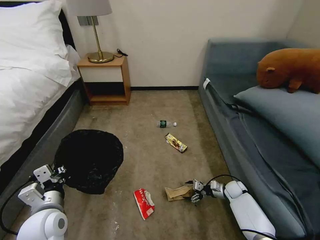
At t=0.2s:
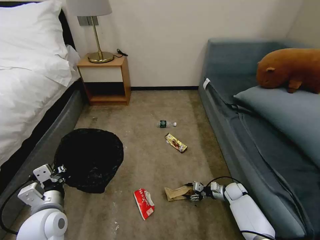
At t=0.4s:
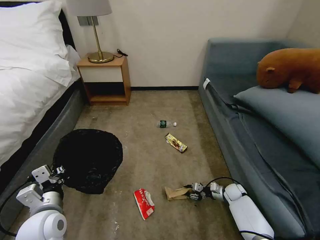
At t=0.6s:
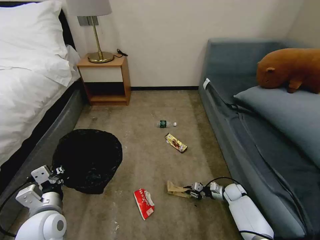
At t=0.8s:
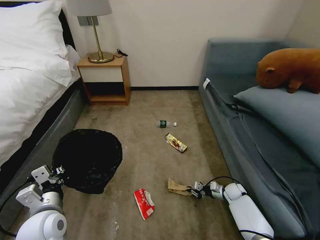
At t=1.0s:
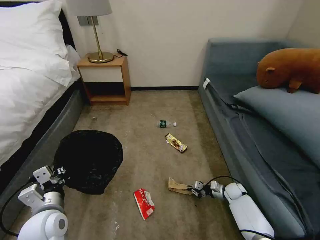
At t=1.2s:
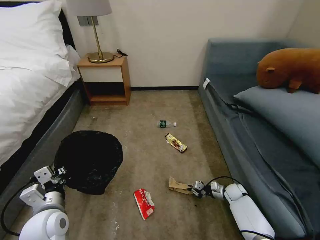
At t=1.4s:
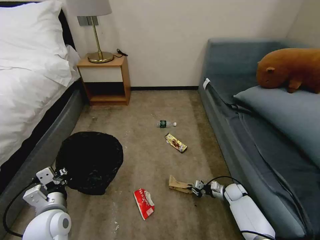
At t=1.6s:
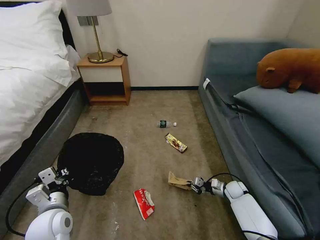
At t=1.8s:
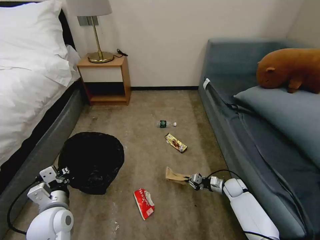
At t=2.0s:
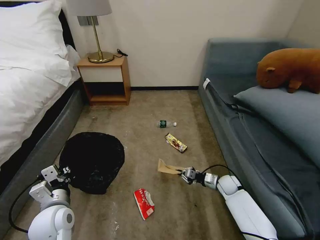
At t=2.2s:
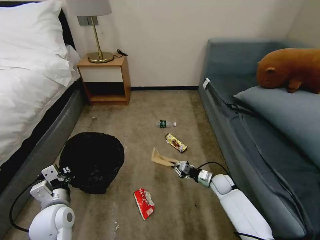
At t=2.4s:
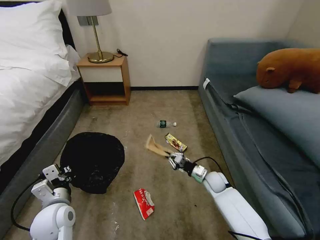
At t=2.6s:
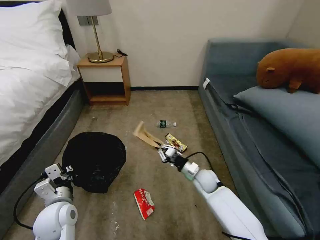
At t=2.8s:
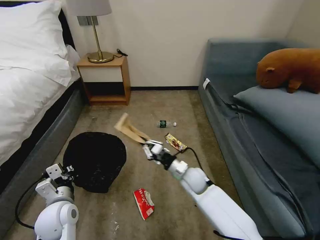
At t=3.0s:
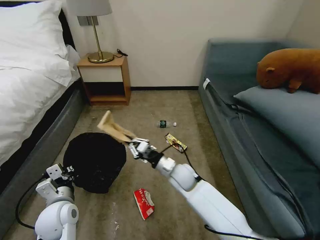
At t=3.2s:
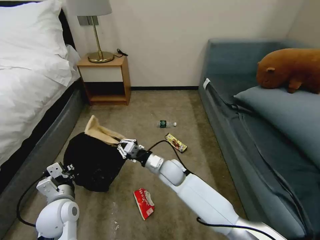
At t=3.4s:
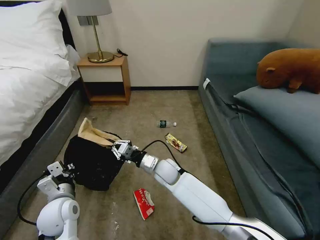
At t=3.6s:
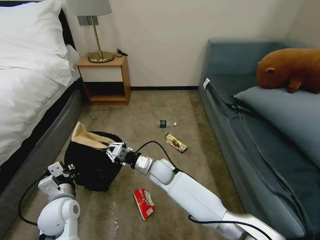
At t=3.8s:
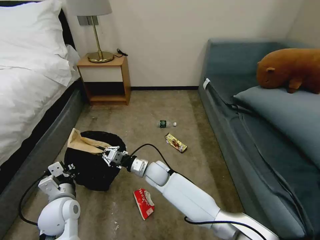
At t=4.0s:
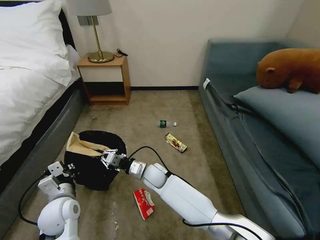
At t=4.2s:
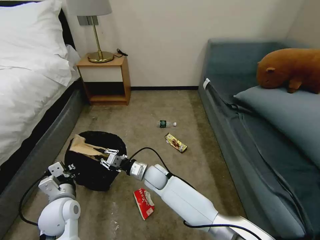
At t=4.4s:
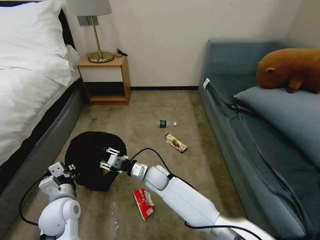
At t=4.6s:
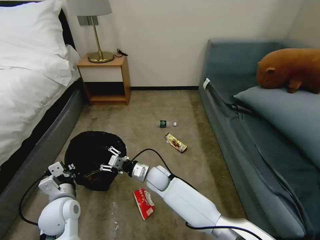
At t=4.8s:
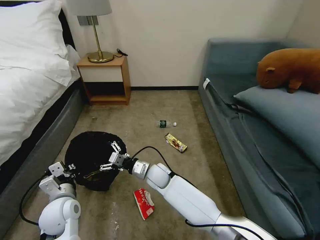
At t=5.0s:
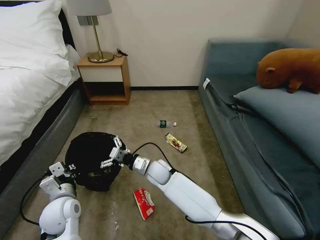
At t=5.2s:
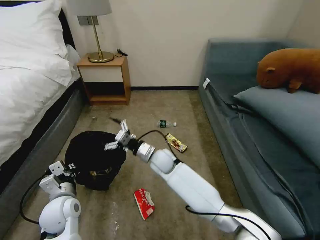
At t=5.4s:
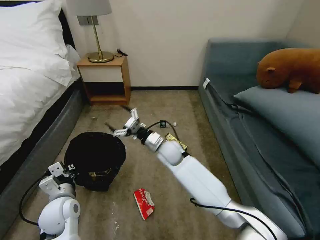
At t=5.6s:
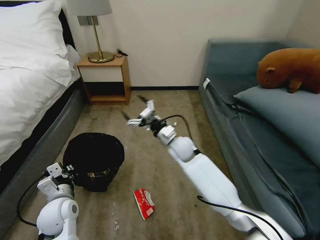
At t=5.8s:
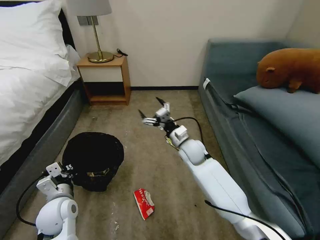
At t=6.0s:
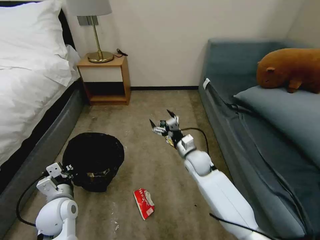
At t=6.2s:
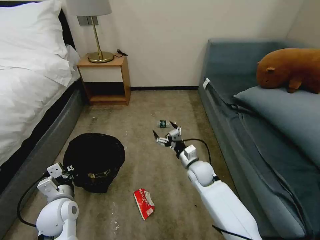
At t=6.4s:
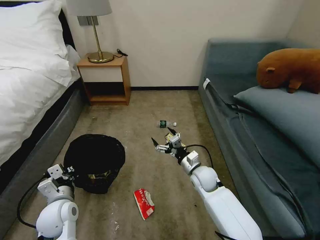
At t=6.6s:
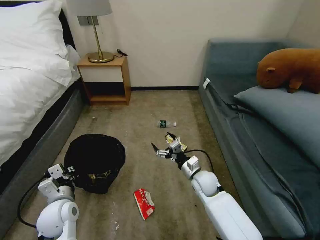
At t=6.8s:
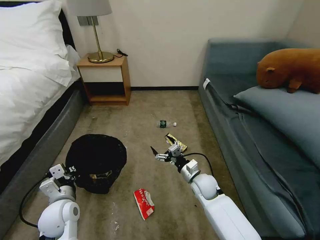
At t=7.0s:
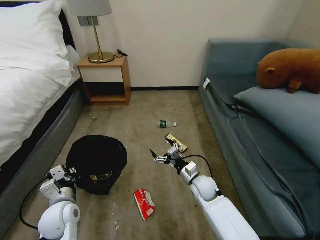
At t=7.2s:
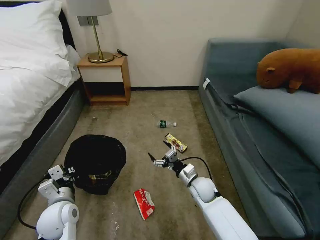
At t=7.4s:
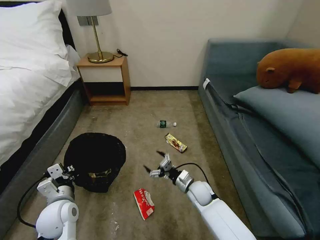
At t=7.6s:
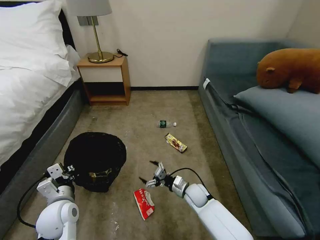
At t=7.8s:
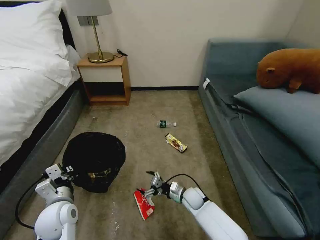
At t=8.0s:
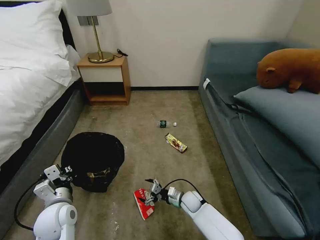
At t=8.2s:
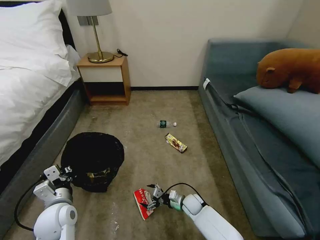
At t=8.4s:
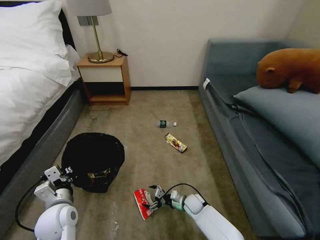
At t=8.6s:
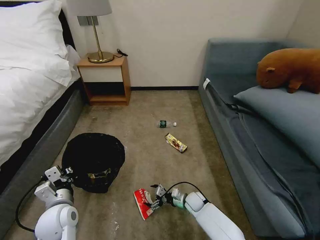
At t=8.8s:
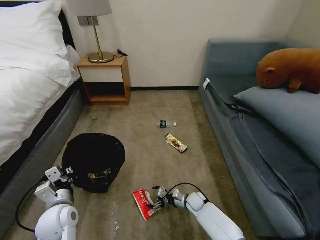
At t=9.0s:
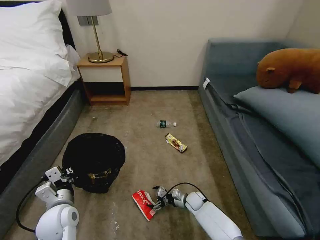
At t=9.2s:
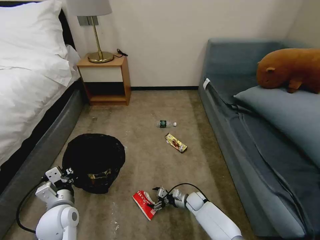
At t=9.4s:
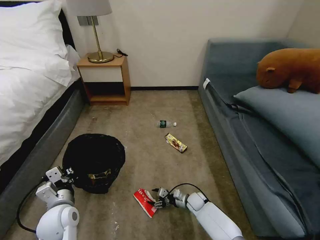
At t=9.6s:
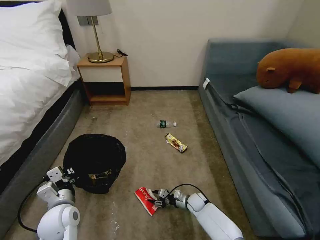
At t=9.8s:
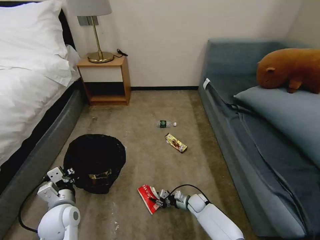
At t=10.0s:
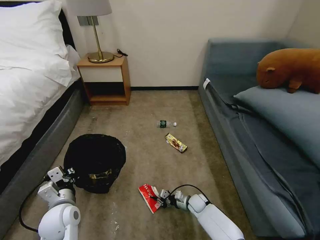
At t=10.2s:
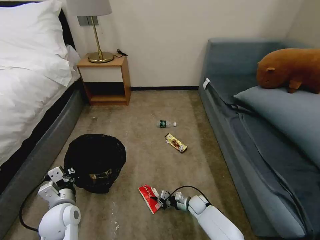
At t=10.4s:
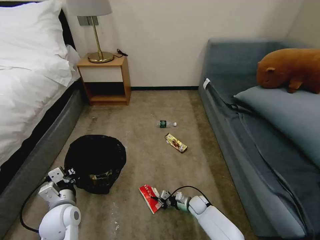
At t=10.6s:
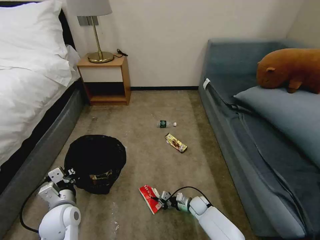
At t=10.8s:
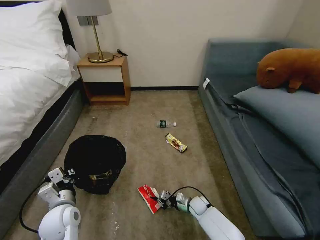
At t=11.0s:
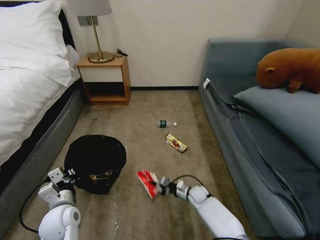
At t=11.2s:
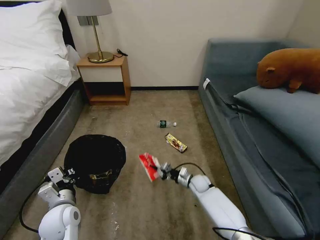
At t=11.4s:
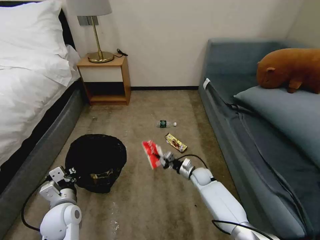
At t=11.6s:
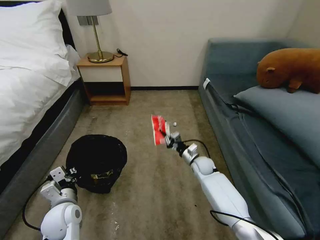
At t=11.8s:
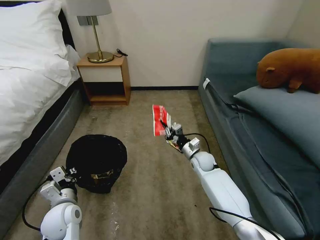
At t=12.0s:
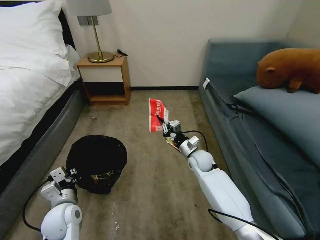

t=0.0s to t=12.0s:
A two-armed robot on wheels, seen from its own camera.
Task of the whole recording: Pick up the trash bin, then pick up the garbage on the floor and place it into the trash bin.
t=0.0s to t=1.6s: The right gripper closes.
t=1.6s to t=3.0s: The right gripper moves to the left and upward, about 35 cm.
t=3.0s to t=4.4s: The right gripper is displaced to the left by about 10 cm, and opens its fingers.
t=4.4s to t=6.0s: The right gripper heads to the right, covering roughly 15 cm, and opens up.
t=6.0s to t=7.6s: The right gripper moves downward and backward, about 15 cm.
t=7.6s to t=9.0s: The right gripper travels downward by about 10 cm.
t=9.0s to t=10.4s: The right gripper closes.
t=10.4s to t=12.0s: The right gripper heads upward and forward, covering some 25 cm.

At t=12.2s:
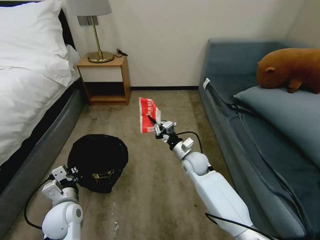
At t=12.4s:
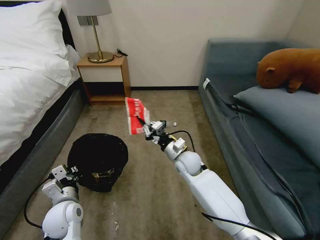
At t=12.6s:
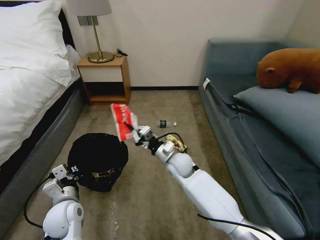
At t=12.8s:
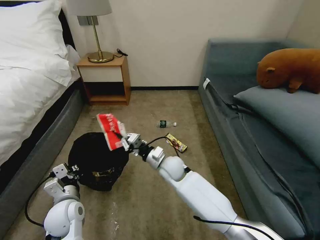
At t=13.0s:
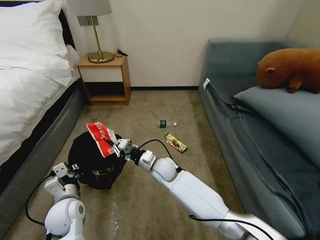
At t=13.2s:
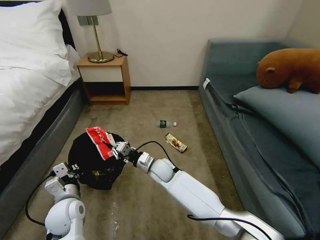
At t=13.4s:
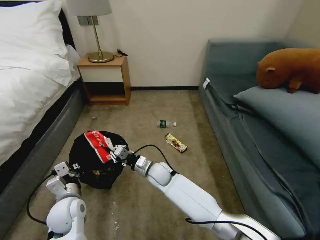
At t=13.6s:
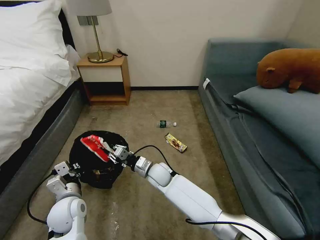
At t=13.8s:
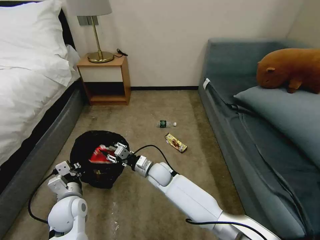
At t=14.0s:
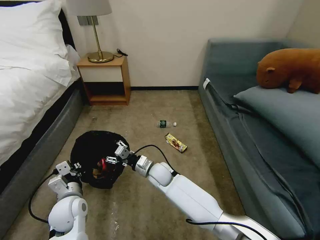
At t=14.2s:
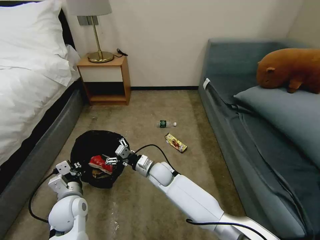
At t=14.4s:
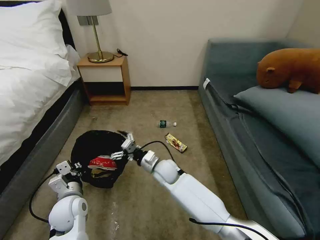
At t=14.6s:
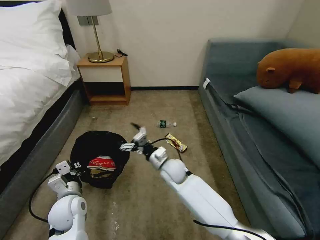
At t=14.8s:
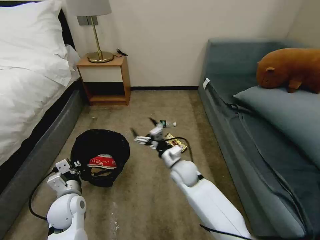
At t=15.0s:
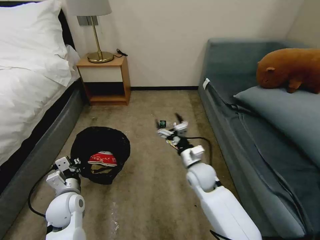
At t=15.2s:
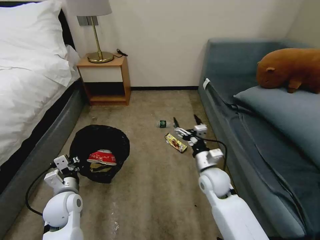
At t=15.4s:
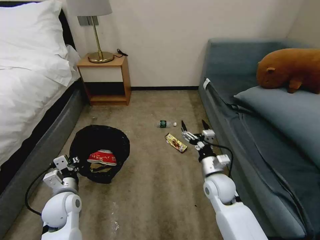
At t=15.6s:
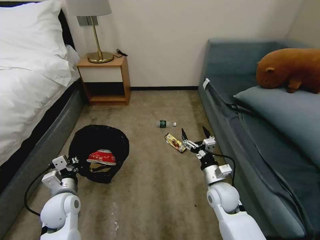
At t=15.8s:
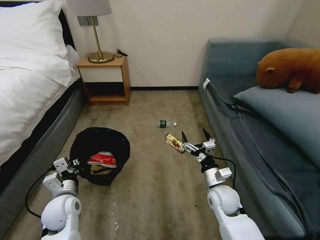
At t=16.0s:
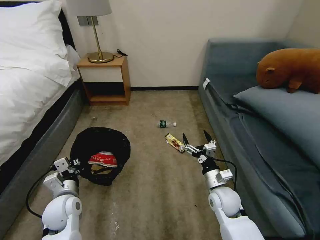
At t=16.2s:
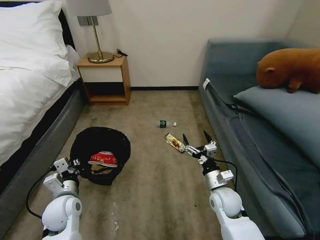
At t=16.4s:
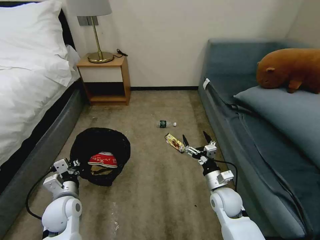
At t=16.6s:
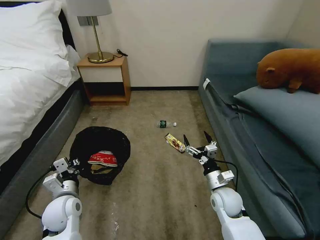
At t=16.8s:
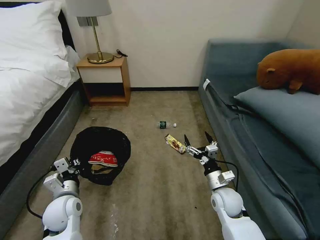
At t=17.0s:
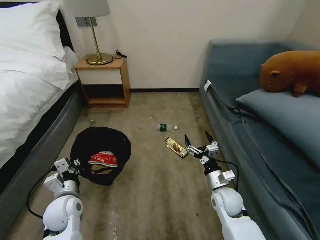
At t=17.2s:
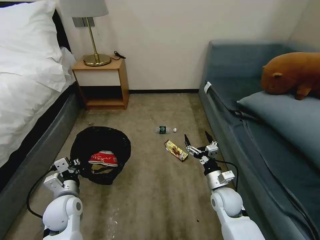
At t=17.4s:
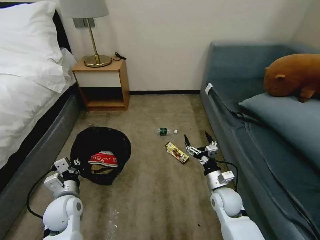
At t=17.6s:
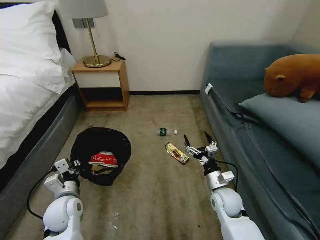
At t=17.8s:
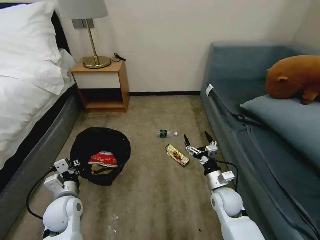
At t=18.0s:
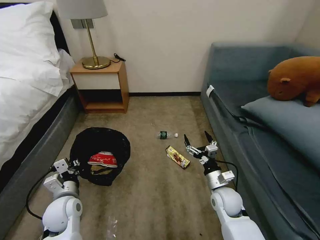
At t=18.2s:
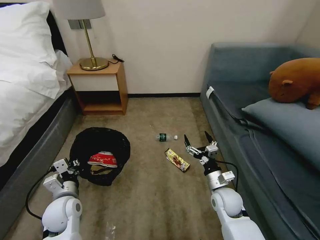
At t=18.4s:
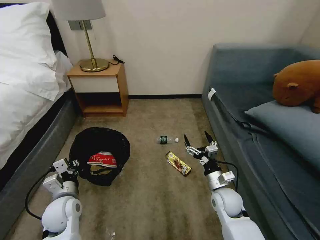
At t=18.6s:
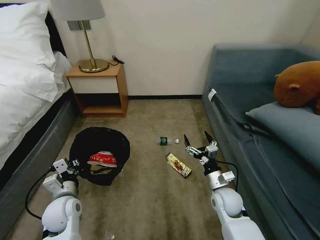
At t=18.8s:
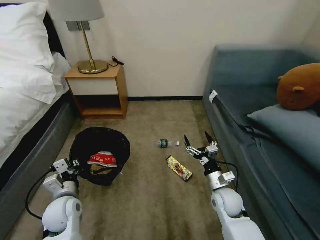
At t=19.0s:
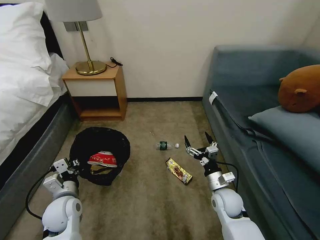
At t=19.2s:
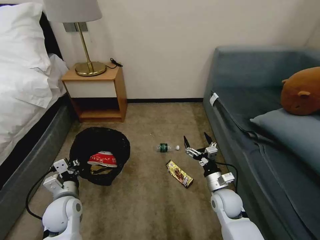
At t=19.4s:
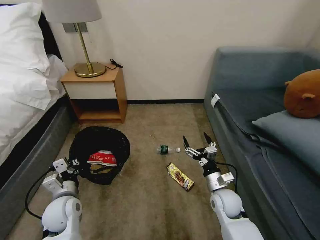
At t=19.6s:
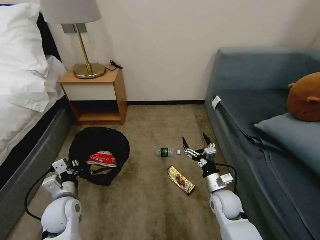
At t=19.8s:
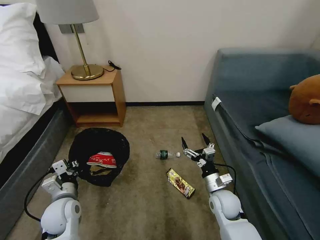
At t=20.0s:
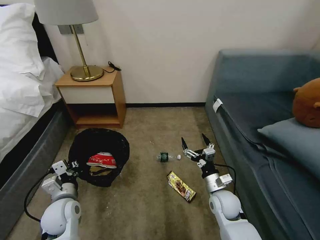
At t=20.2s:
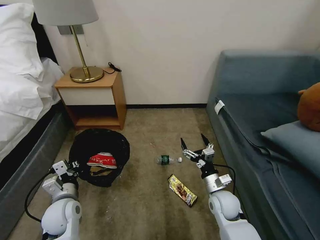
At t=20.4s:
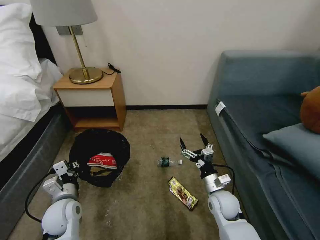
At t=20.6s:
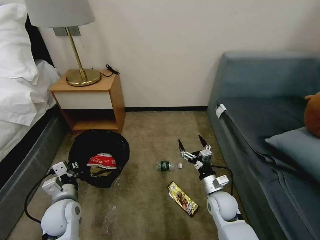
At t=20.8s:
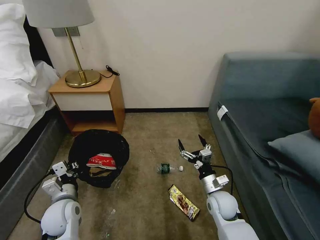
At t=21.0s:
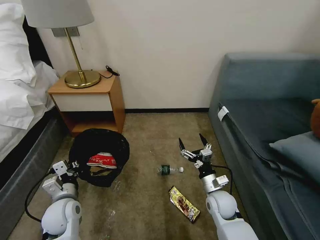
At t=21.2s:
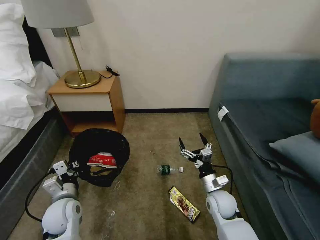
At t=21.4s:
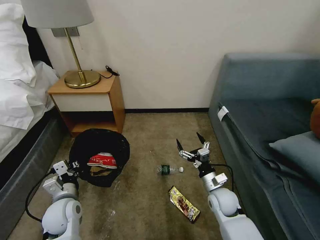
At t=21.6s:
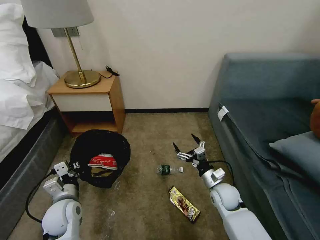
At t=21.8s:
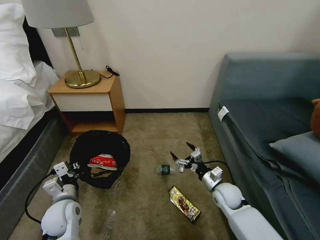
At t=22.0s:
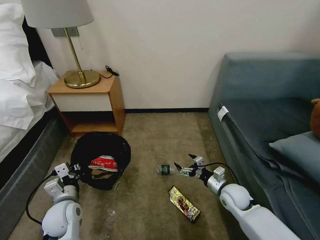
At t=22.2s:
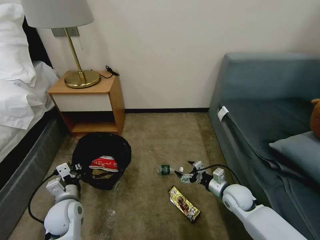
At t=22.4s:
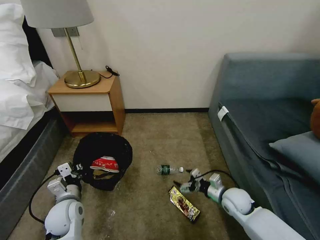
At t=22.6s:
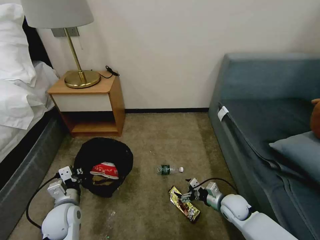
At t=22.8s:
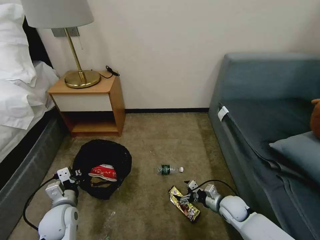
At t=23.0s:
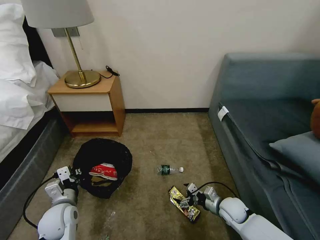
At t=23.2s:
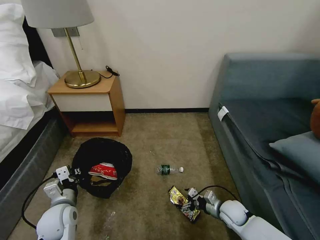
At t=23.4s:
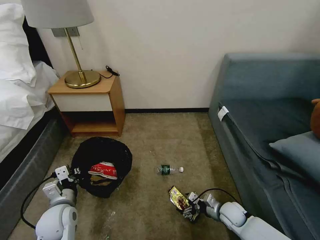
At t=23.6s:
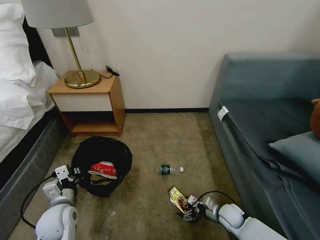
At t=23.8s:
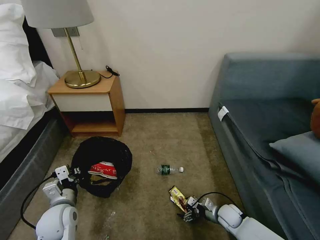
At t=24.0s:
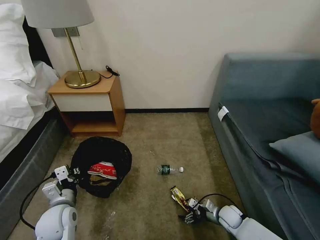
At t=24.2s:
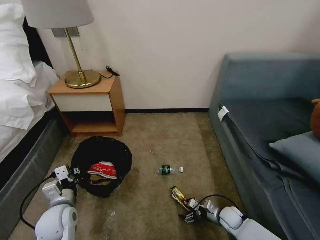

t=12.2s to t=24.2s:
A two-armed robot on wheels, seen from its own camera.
Task of the whole recording: Pick up the trash bin, then pick up the garbage on the floor and place it into the trash bin.
t=12.2s to t=13.8s: The right gripper travels to the left by some 15 cm, and opens.
t=13.8s to t=15.2s: The right gripper heads to the right, covering some 20 cm, and opens its fingers.
t=15.2s to t=16.6s: The right gripper heads downward and to the right, covering roughly 10 cm.
t=16.6s to t=18.2s: Both grippers stay put.
t=21.2s to t=22.6s: The right gripper moves to the right, approximately 5 cm.
t=22.6s to t=24.2s: The right gripper travels downward by about 10 cm.
